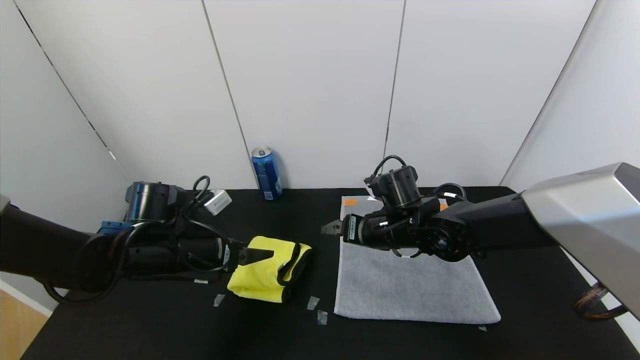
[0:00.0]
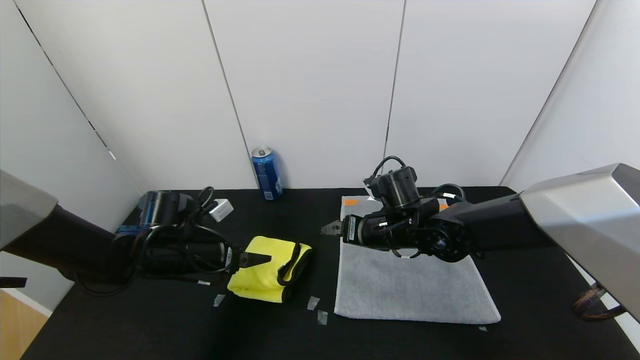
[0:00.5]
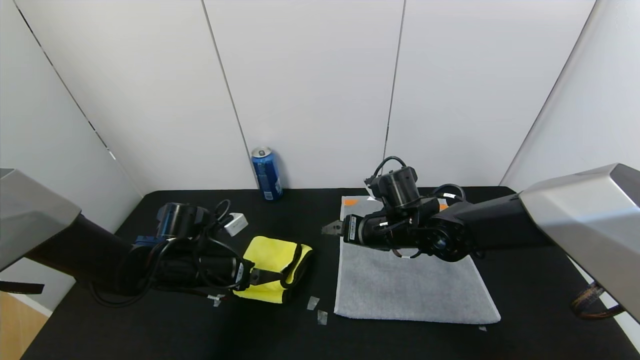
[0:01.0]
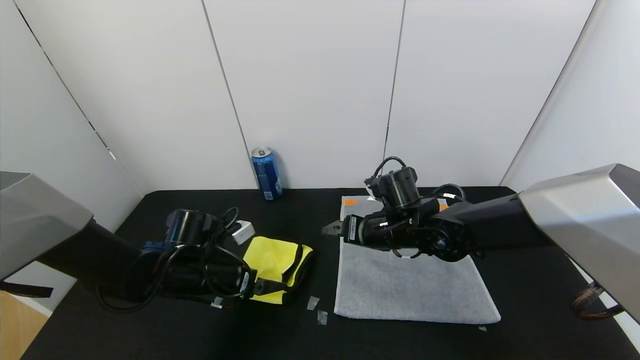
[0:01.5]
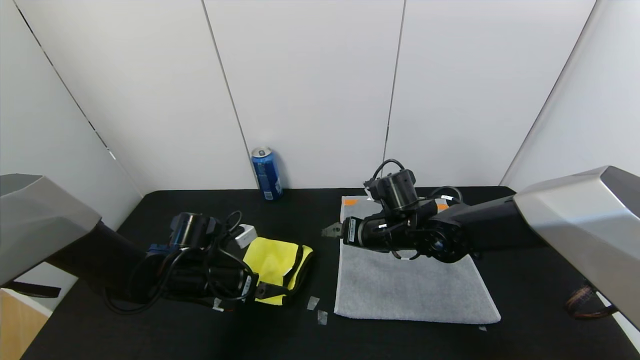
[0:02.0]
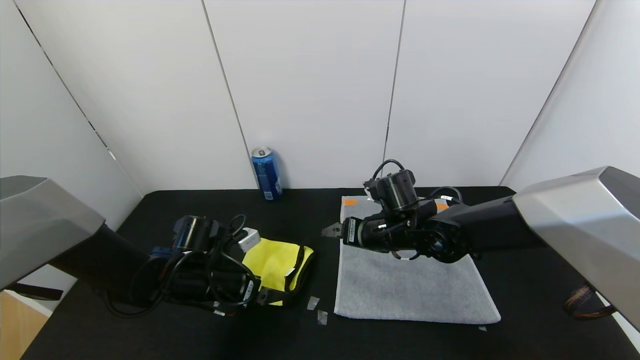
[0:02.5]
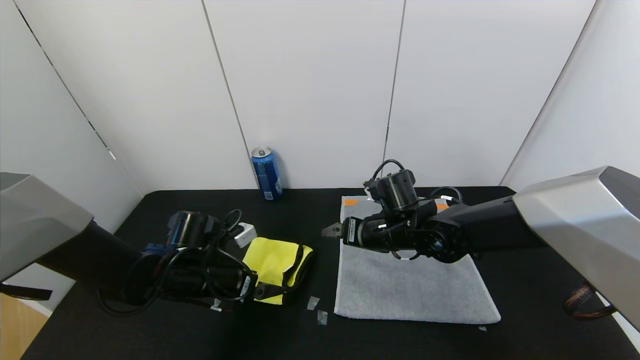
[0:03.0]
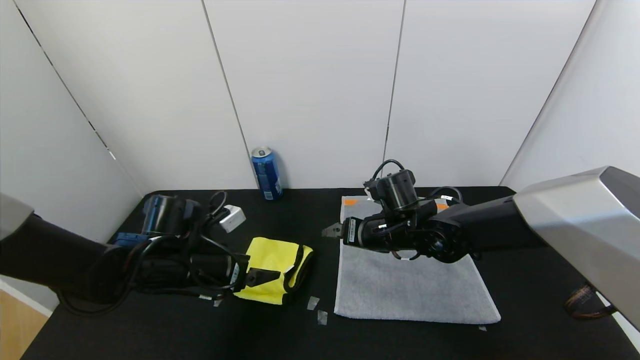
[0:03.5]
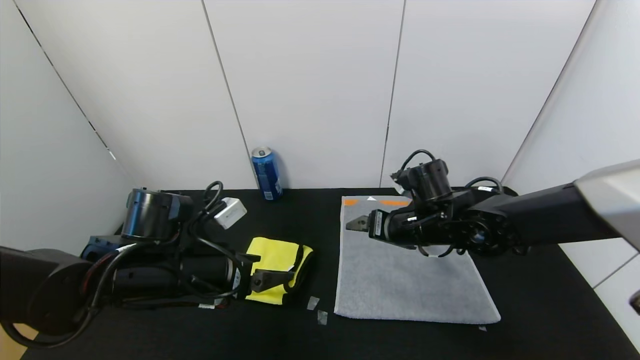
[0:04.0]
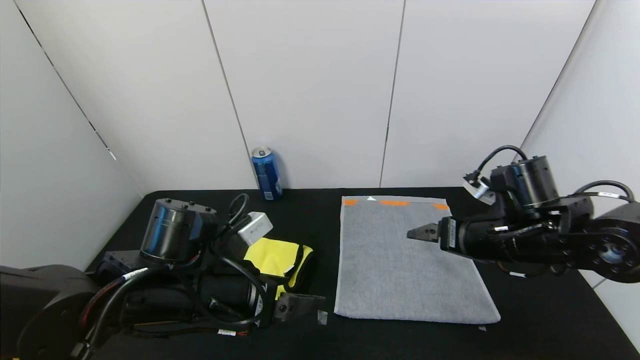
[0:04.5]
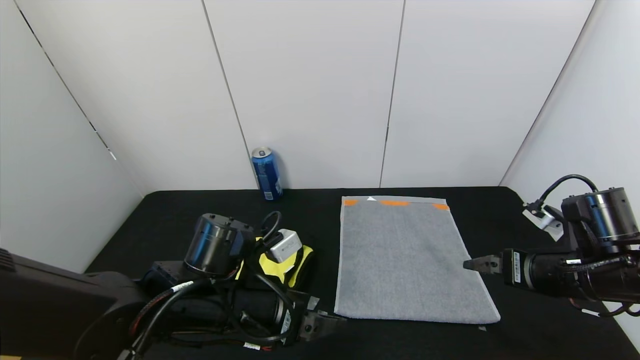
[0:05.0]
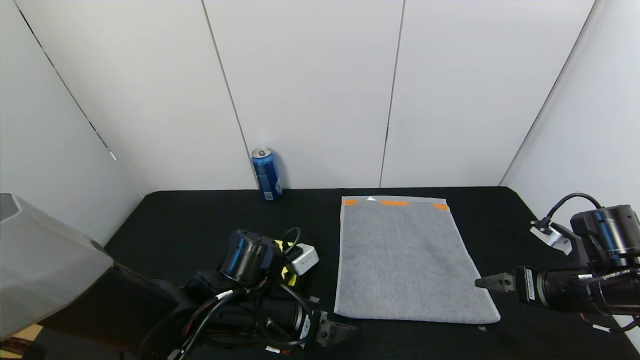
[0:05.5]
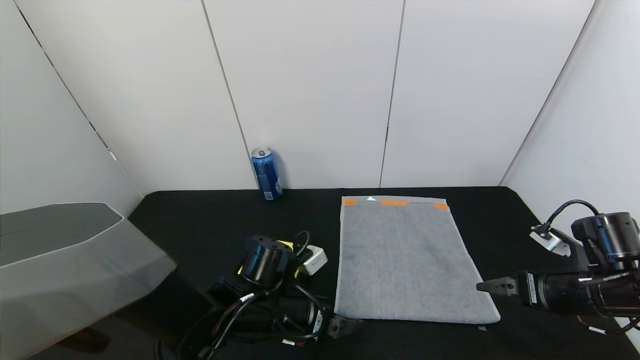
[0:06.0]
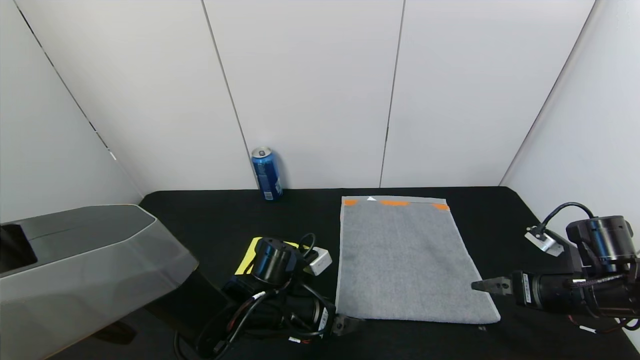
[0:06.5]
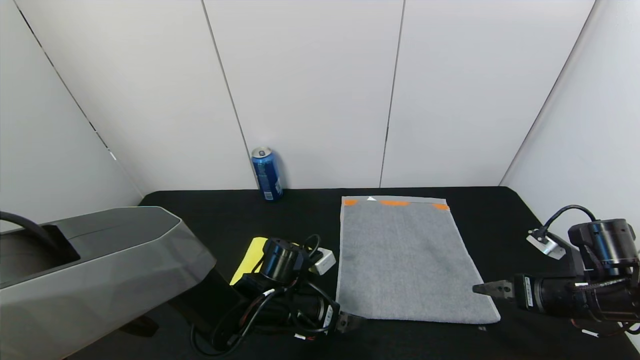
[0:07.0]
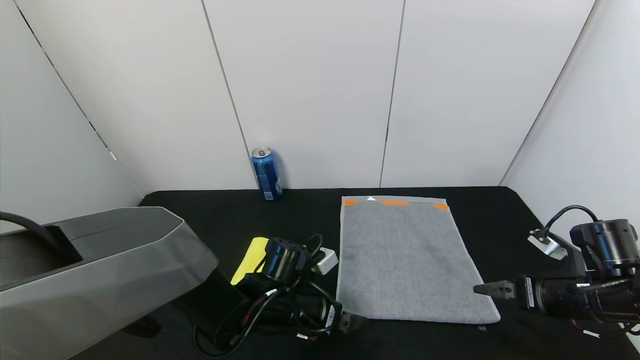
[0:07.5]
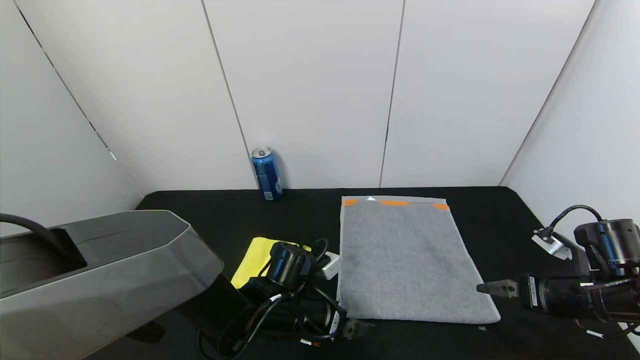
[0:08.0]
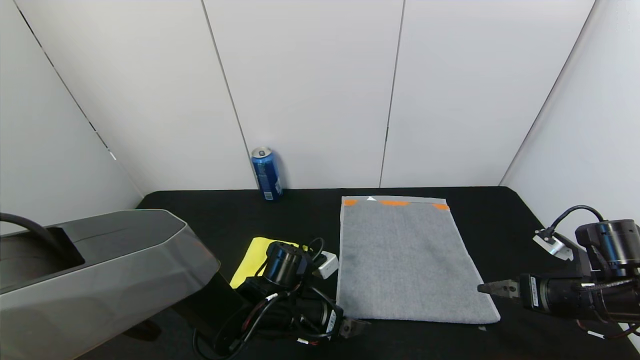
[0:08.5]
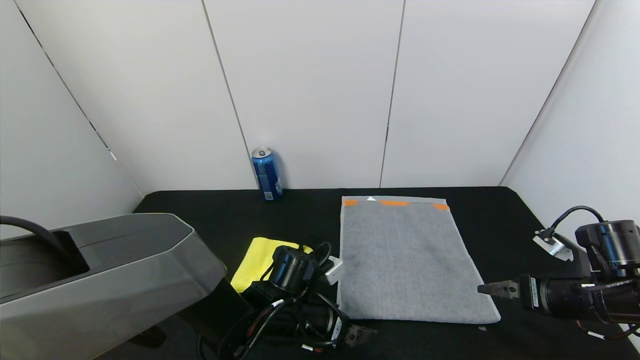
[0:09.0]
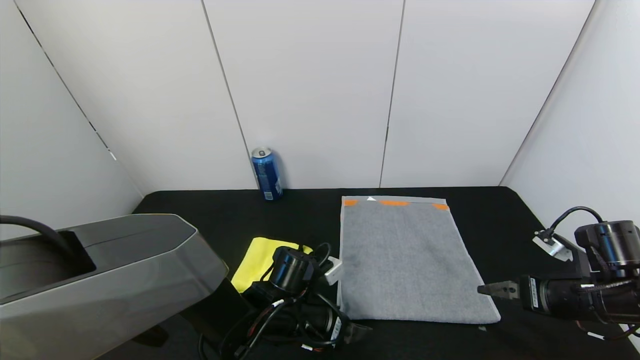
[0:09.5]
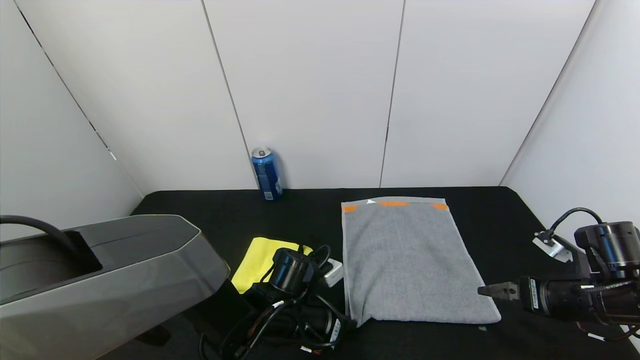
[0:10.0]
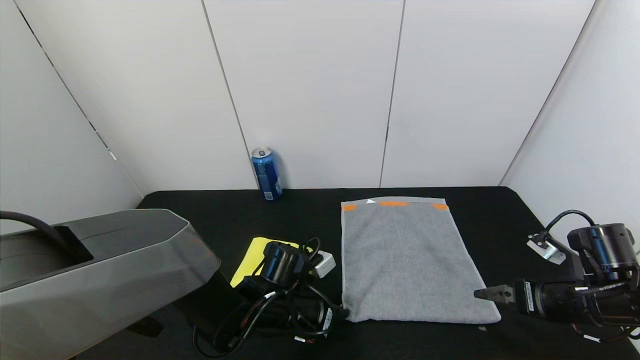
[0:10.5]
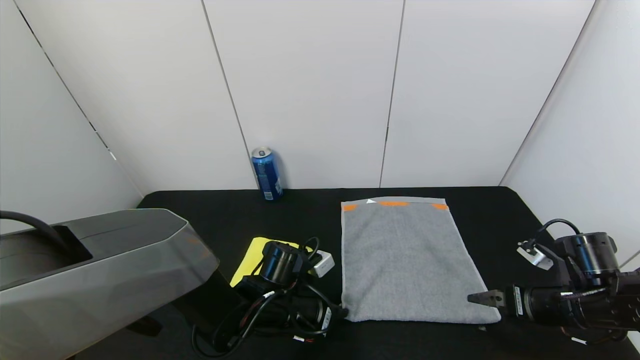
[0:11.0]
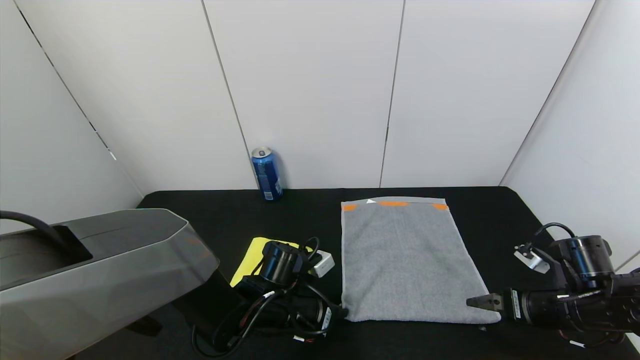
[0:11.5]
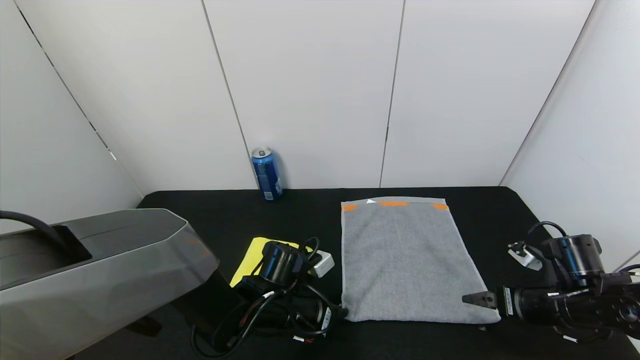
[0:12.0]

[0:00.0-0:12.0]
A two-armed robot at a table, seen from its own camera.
Task of the whole recording: Use the gripper to fold the yellow towel and grey towel in half twice,then put the yellow towel on the grey towel.
Step, 0:00.0 to 0:03.0: Press the yellow towel with the left gripper.
0:00.0 to 0:02.0: The left gripper goes about 5 cm downward.
0:02.0 to 0:04.0: The left gripper shifts approximately 10 cm upward and backward. The right gripper shifts by approximately 5 cm.
0:04.0 to 0:06.0: The left gripper is displaced to the right and downward by about 15 cm, while the right gripper shifts roughly 25 cm to the right and backward.
0:06.0 to 0:08.0: The grippers stay close to where they were, moving slightly.
0:08.0 to 0:10.0: The left gripper closes.
0:10.0 to 0:12.0: The grippers make only small movements.

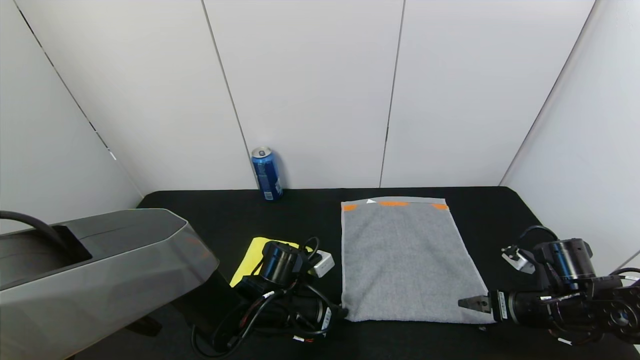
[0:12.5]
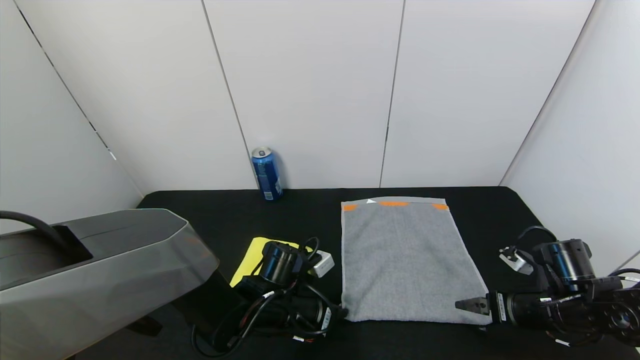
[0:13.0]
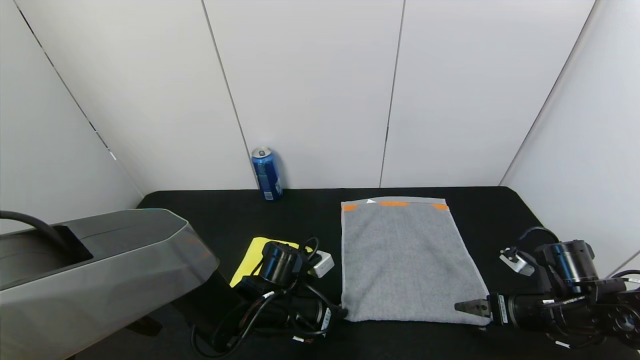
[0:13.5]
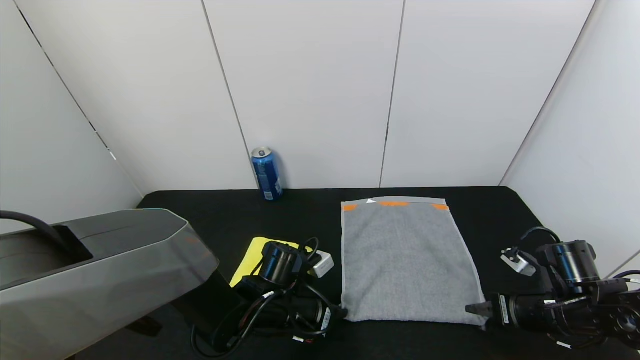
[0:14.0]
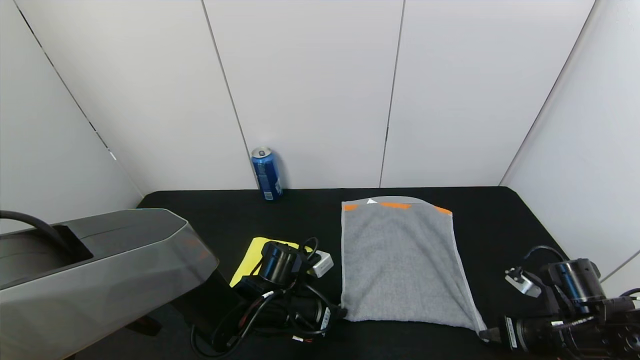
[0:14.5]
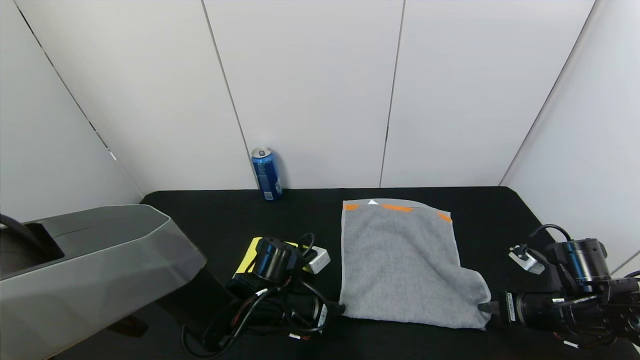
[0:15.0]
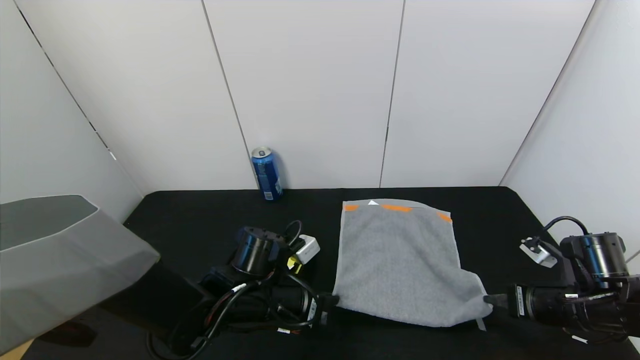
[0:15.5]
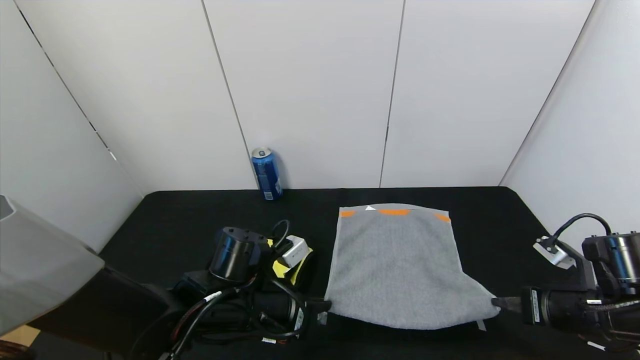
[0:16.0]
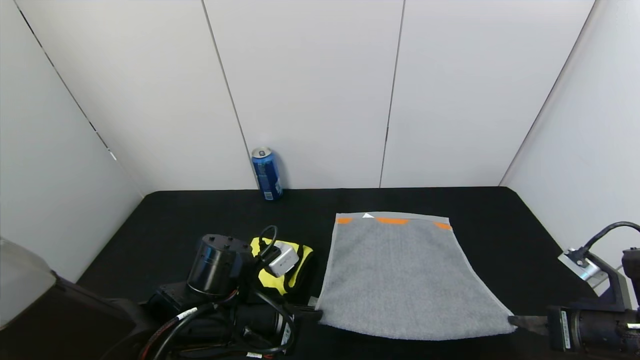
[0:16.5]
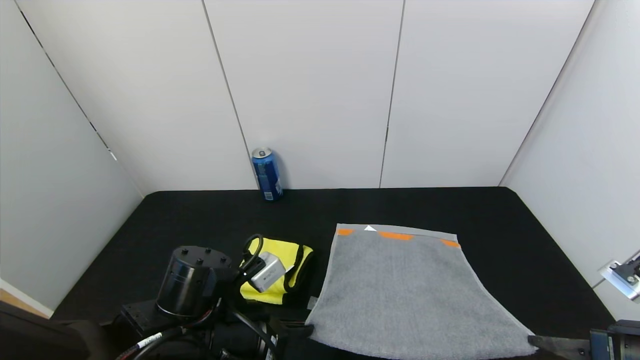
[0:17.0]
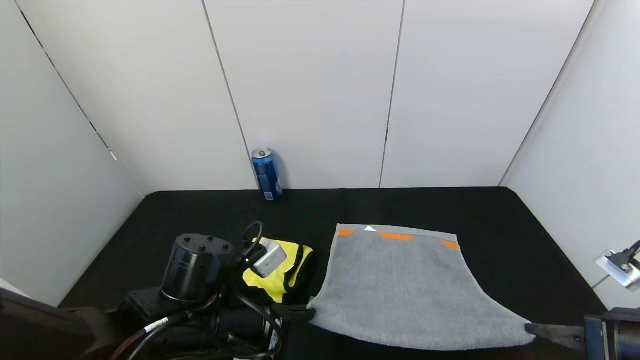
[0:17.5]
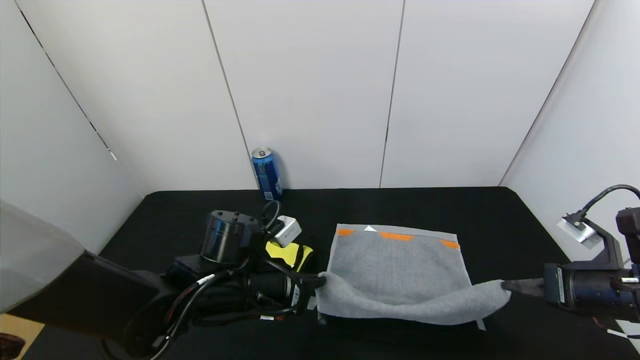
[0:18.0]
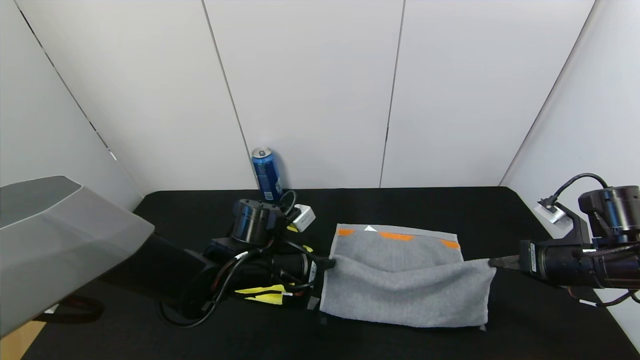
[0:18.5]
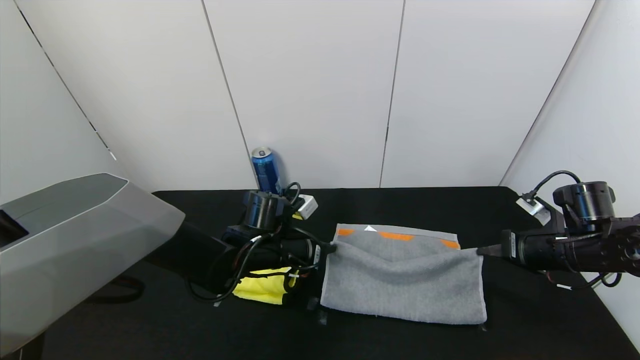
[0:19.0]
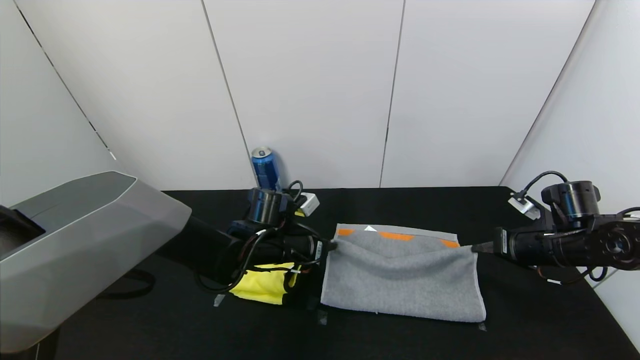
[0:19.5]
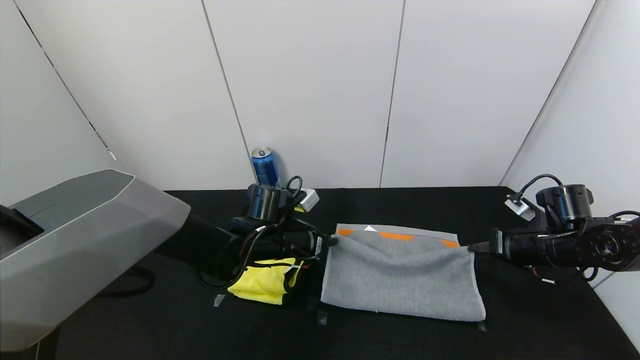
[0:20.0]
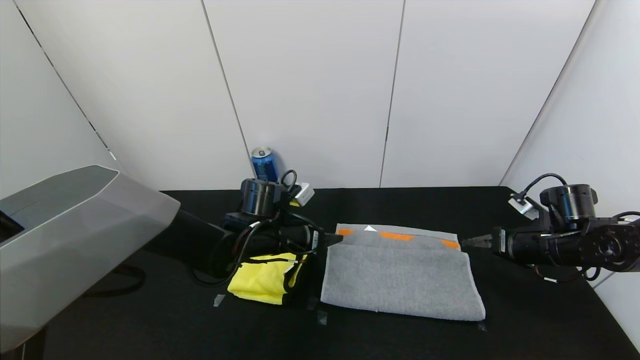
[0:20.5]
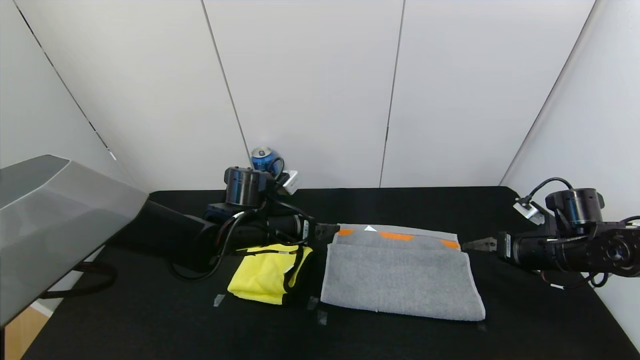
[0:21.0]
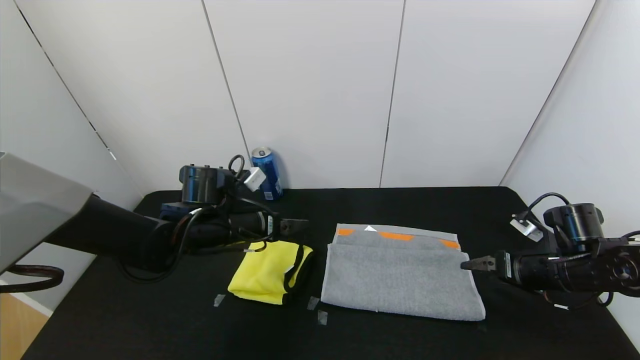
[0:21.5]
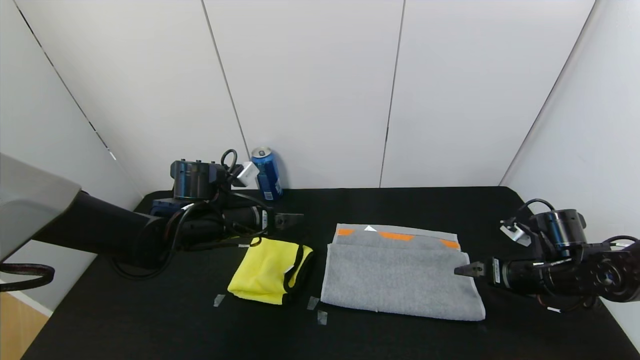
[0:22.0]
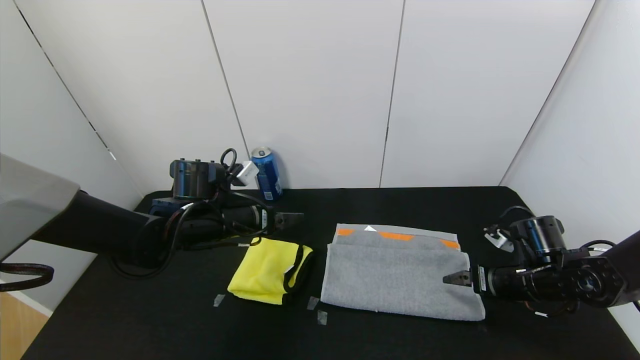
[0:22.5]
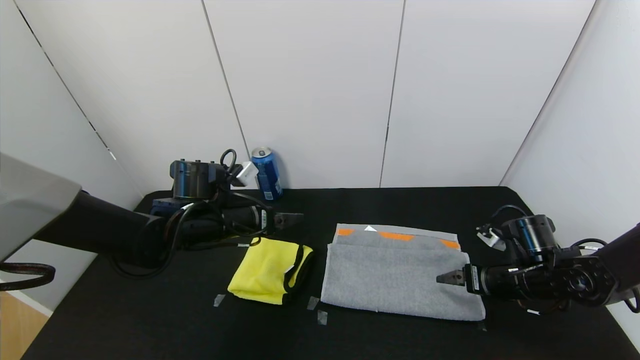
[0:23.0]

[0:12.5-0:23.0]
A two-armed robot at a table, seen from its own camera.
Task of the whole recording: Use the gripper to fold the yellow towel and grey towel in half twice,then put the yellow towel on the grey towel.
Step, 0:12.5 to 0:20.0: Fold the gray towel upwards with the left gripper.
Step, 0:12.5 to 0:20.0: Fold the gray towel upwards with the right gripper.
0:12.5 to 0:14.5: The right gripper closes up.
0:14.5 to 0:16.5: Both grippers move upward and backward, approximately 10 cm.
0:16.5 to 0:19.0: Both grippers travel together forward, roughly 15 cm.
0:19.0 to 0:21.0: The left gripper opens its fingers. Meanwhile the right gripper opens.
0:21.0 to 0:23.0: The two grippers go roughly 5 cm to the left.
